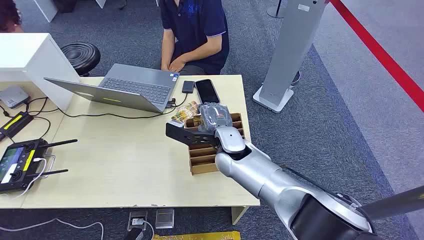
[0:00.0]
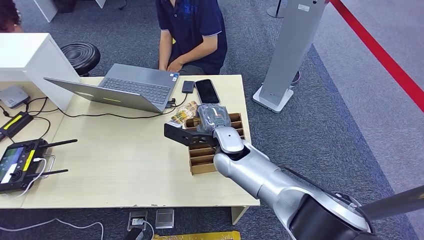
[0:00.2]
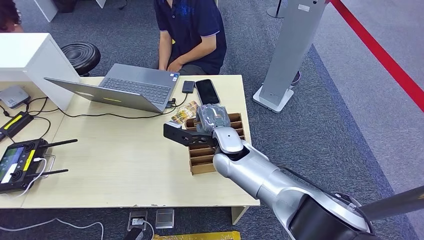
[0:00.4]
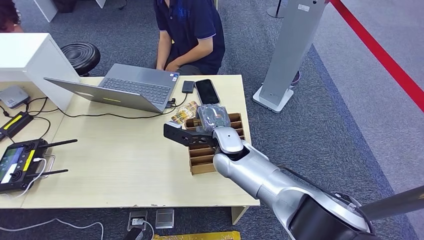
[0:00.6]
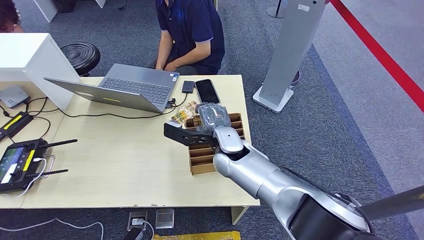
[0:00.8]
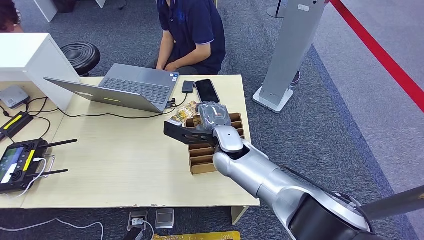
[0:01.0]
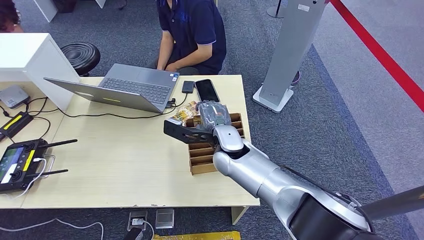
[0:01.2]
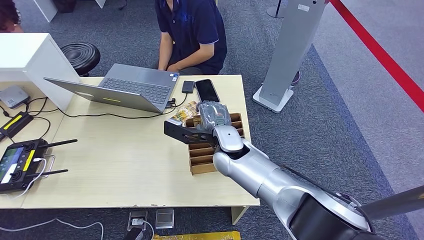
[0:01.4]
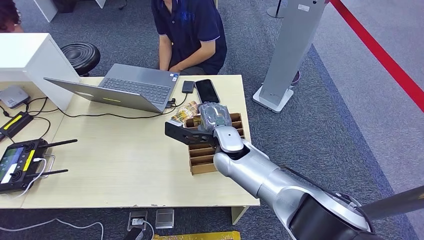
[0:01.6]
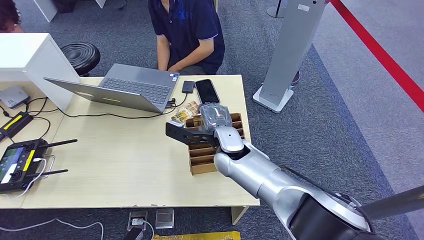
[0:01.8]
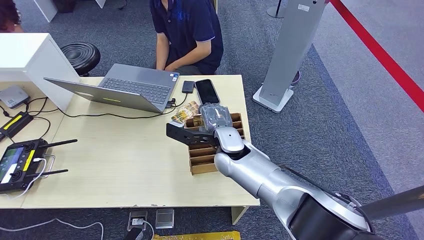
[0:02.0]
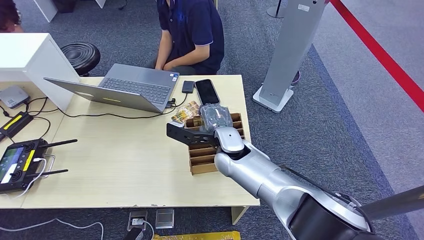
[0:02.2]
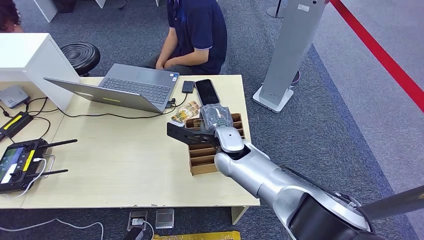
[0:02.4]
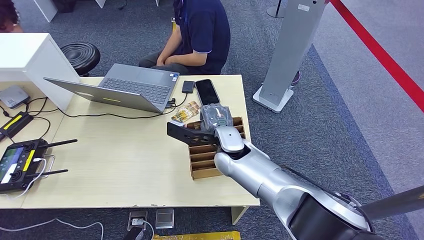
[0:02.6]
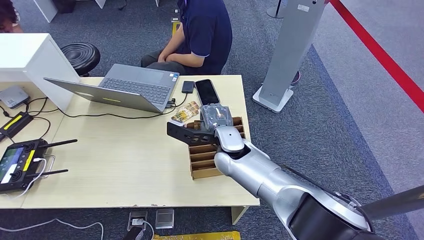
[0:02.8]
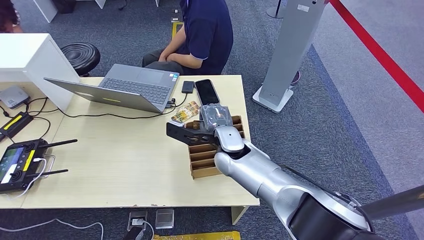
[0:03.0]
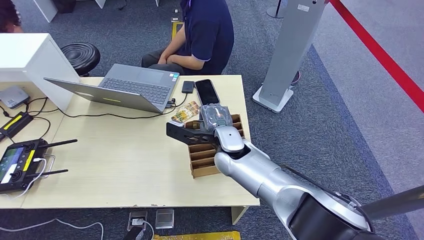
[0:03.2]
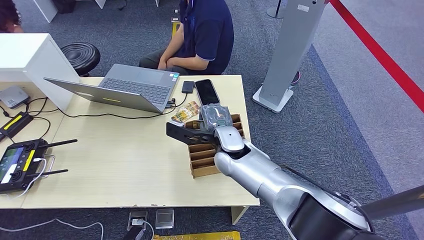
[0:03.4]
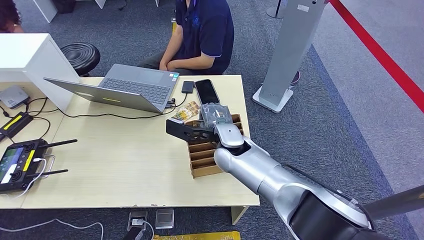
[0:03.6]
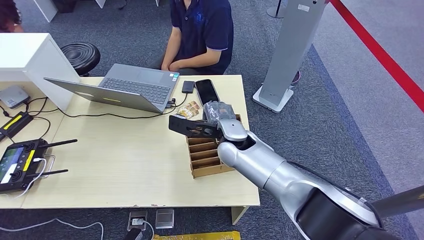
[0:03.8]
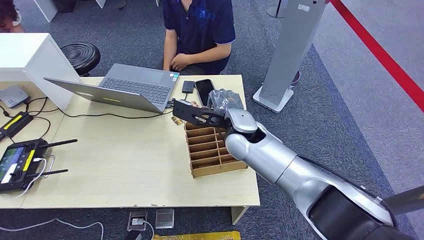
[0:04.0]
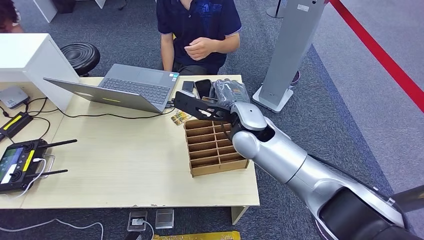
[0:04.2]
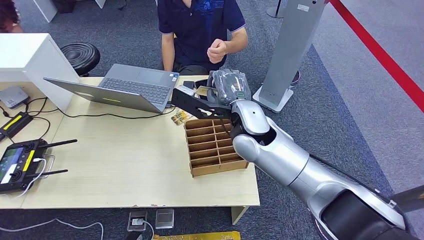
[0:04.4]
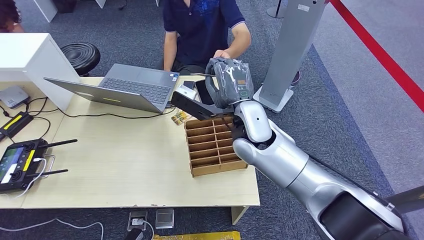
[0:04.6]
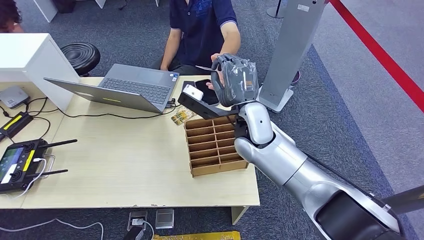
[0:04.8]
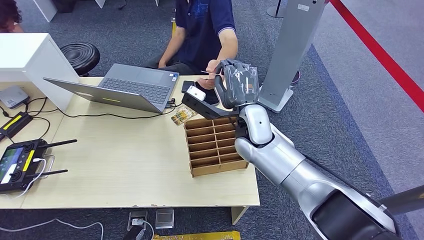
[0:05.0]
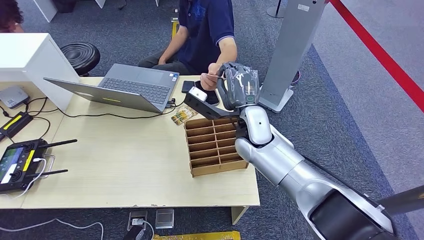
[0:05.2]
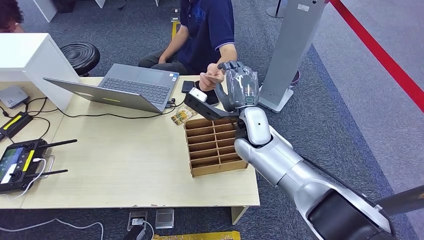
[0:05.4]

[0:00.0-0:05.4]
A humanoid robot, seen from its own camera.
Step, 0:00.0 to 0:04.0: Pick up the room card from the card holder.
Step, 0:04.6 to 0:05.4: Hand the room card to the target.
0:01.4 to 0:02.8: Both hands stay about where they are.
0:02.8 to 0:04.0: The right hand moves upward, about 5 cm.
